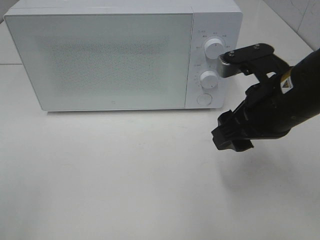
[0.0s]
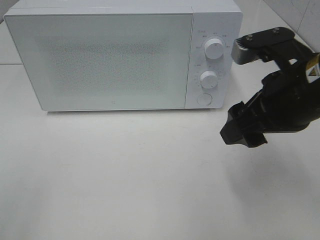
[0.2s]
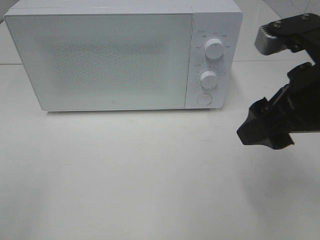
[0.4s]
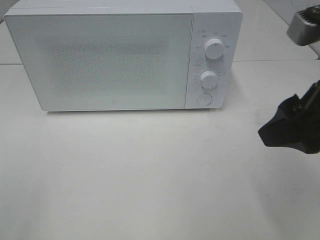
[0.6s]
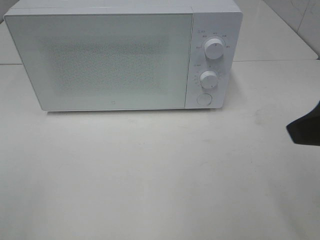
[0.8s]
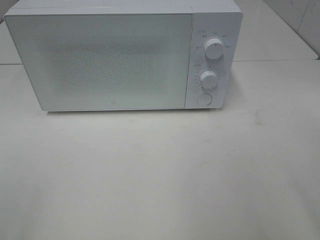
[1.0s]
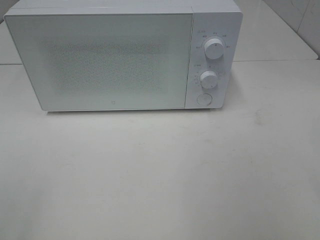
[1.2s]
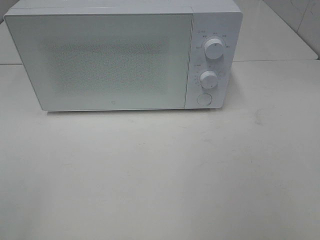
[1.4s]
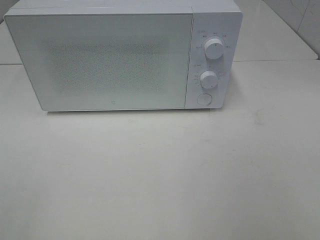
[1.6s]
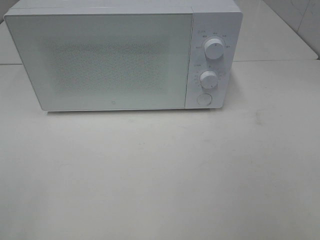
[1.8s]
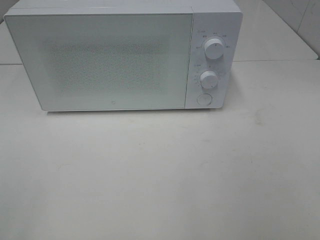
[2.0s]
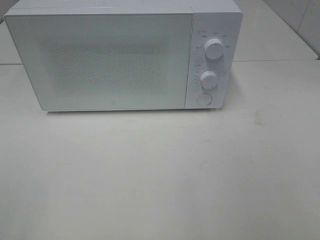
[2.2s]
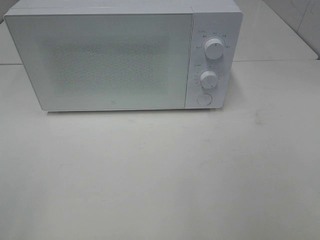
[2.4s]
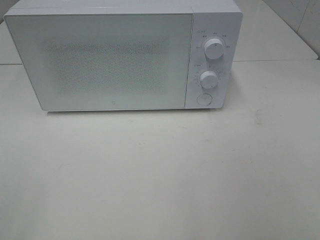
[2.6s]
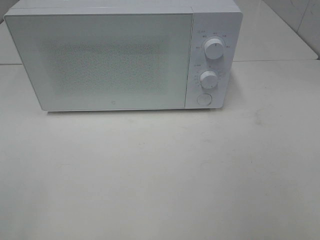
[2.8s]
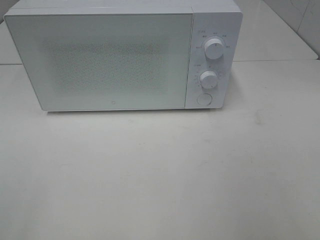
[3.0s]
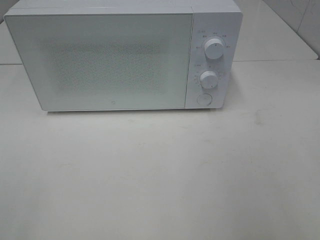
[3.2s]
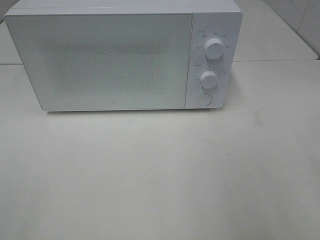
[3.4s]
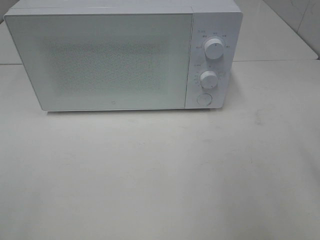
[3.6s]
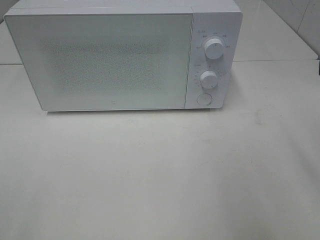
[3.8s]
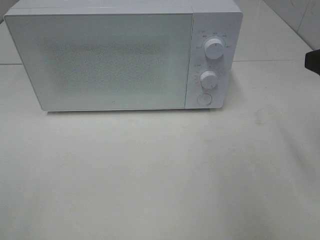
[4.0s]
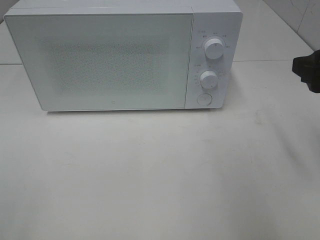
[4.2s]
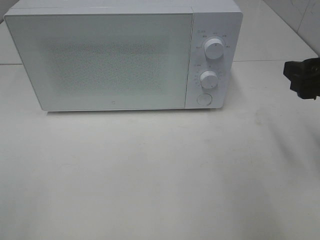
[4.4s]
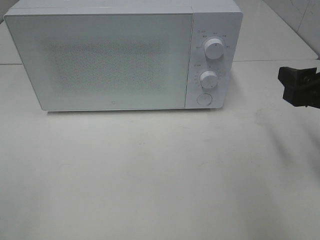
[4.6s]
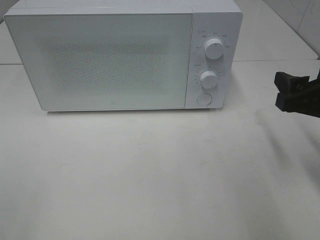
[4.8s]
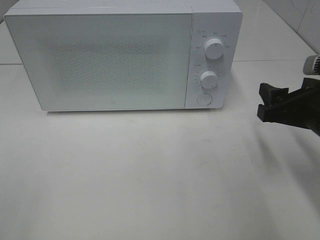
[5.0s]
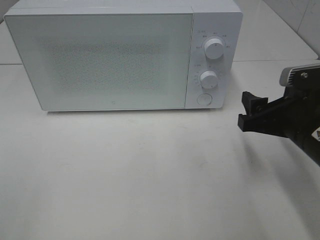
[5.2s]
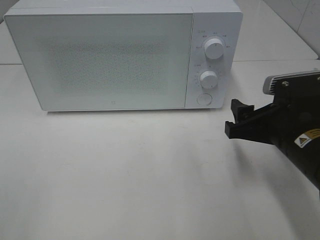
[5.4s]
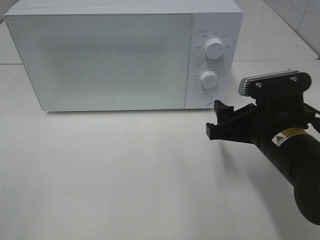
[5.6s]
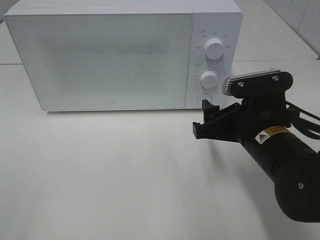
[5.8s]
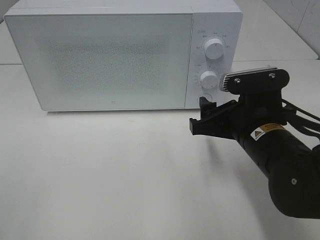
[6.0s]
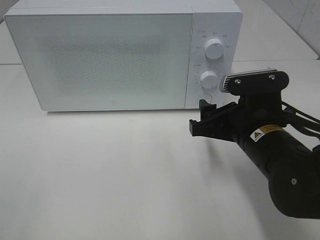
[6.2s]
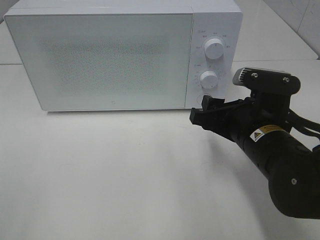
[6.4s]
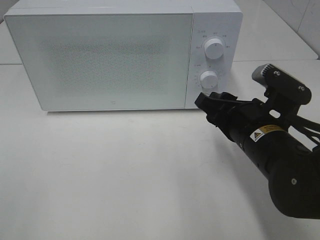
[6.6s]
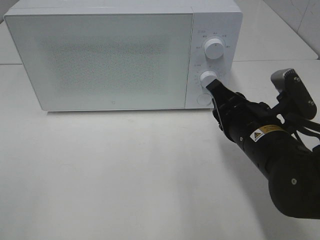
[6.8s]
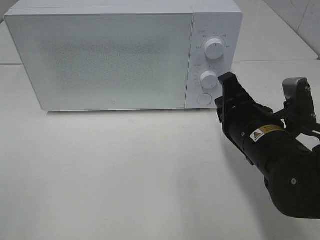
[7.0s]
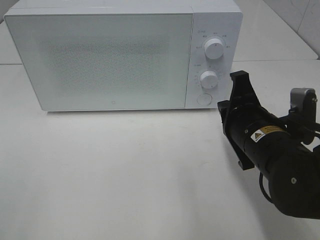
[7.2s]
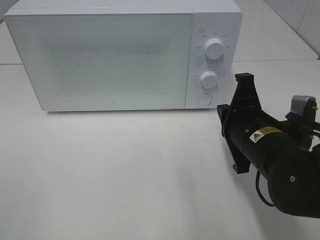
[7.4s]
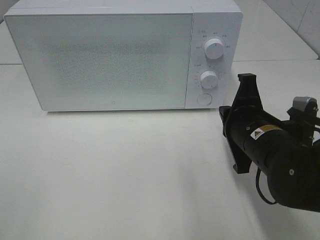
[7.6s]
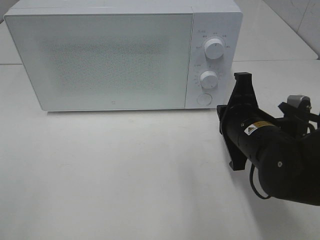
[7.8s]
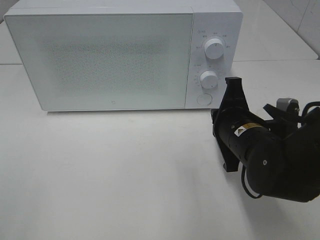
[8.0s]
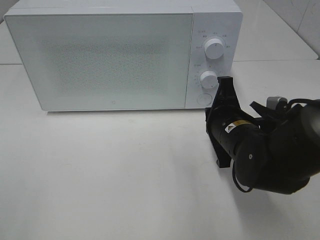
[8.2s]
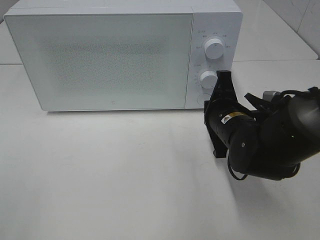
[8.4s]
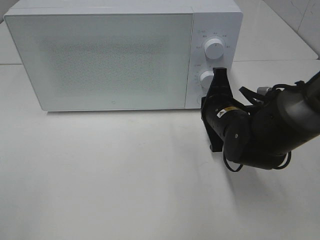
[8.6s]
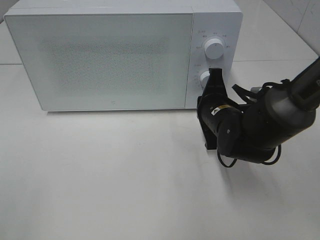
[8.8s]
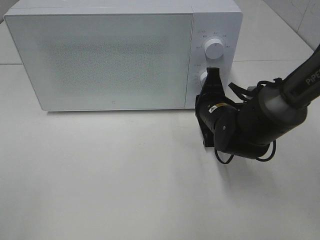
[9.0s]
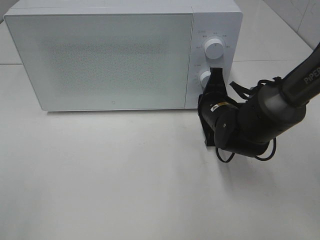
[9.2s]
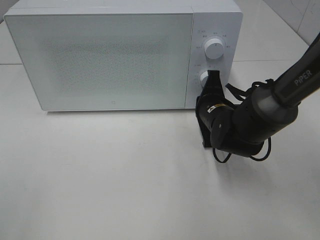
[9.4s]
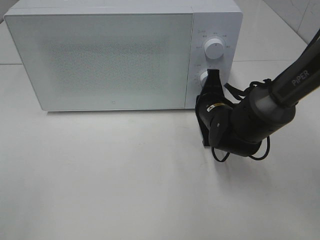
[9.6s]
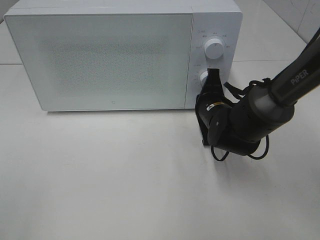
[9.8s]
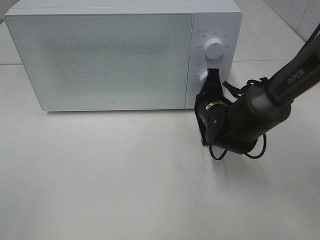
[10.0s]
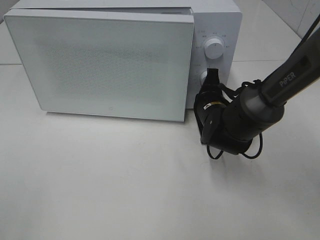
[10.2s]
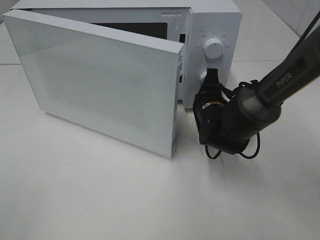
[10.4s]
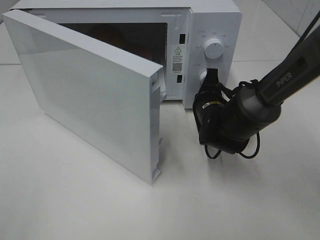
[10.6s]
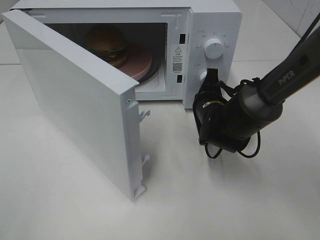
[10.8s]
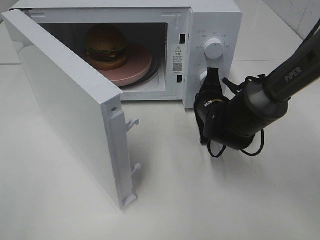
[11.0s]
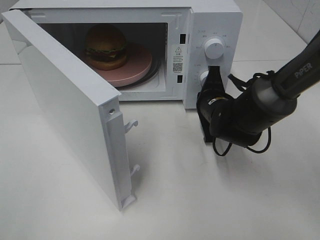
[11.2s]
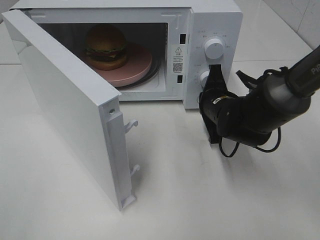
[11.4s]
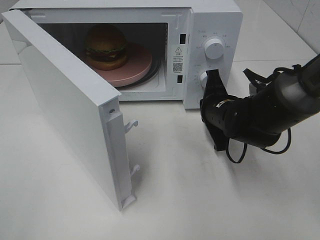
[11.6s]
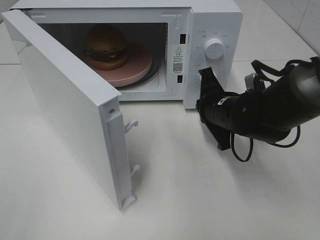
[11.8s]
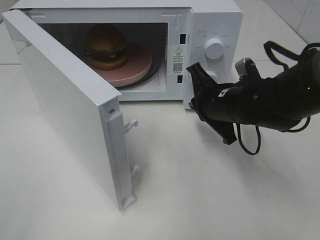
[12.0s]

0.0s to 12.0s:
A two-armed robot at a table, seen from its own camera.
Task of the whole recording: Heat the burger.
Step, 0.0s to 11.8s: Right hand: press the switch.
0.0s to 1.6s: The right gripper goes roughly 25 cm backward, to the right and upward.
3.0s to 4.4s: The right gripper travels forward and downward by roughly 20 cm.
4.4s to 6.0s: The right gripper is displaced to the left and downward by about 15 cm.
6.0s to 7.6s: The right gripper closes its fingers.
7.6s to 9.0s: The right gripper shifts about 10 cm forward.
9.0s to 10.4s: There are only small adjustments of the grippers.
10.4s to 12.0s: The right gripper heads upward, covering approximately 5 cm.

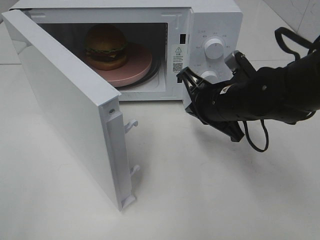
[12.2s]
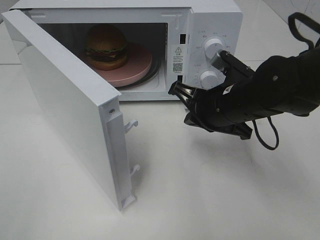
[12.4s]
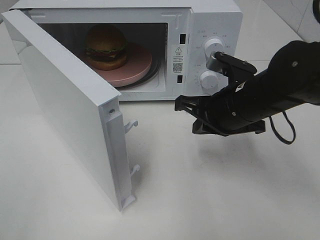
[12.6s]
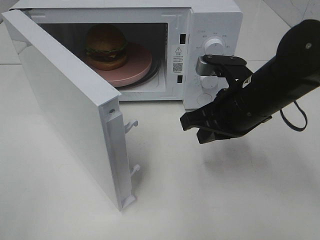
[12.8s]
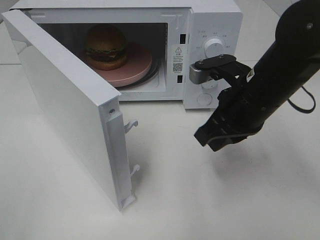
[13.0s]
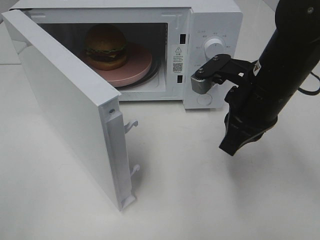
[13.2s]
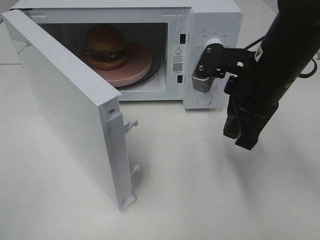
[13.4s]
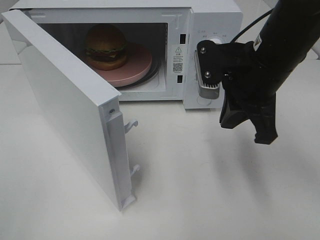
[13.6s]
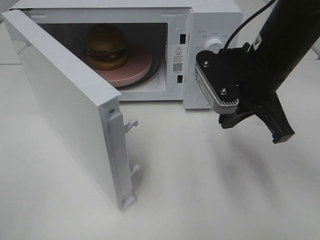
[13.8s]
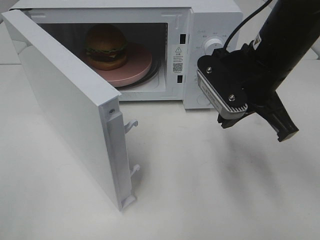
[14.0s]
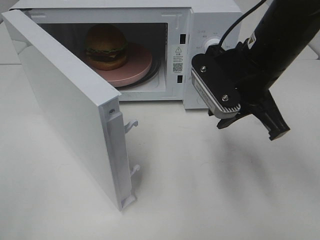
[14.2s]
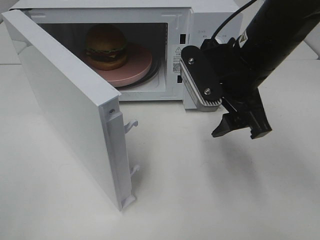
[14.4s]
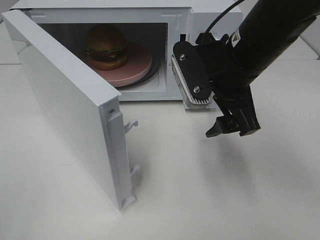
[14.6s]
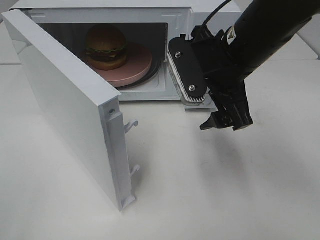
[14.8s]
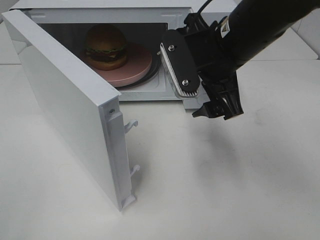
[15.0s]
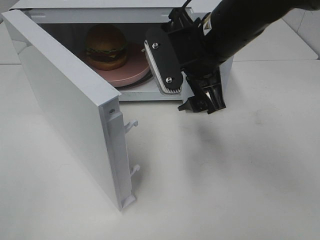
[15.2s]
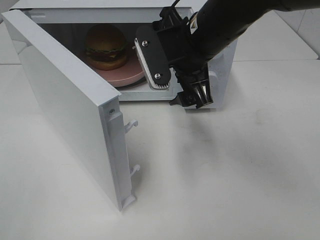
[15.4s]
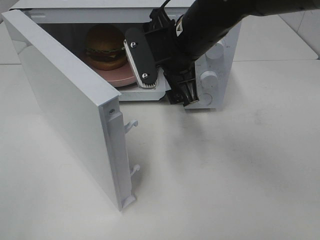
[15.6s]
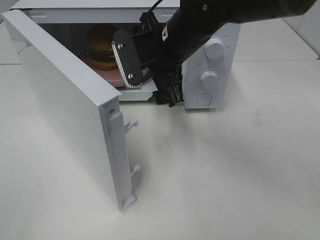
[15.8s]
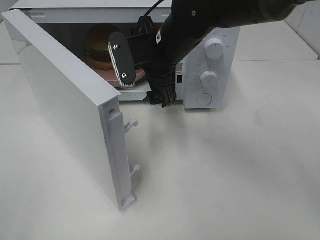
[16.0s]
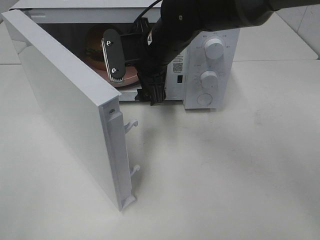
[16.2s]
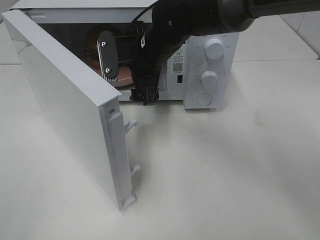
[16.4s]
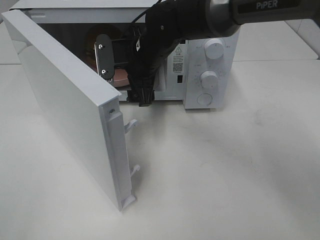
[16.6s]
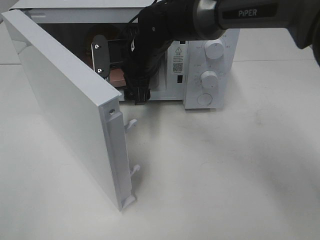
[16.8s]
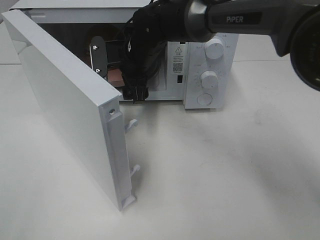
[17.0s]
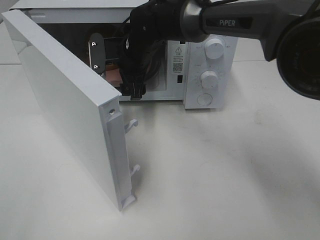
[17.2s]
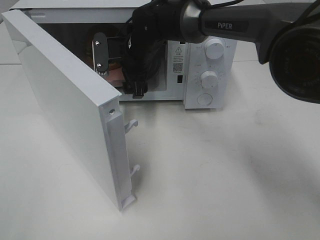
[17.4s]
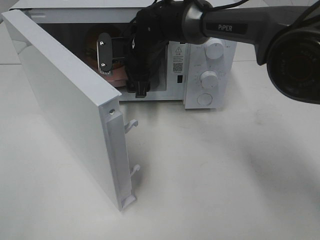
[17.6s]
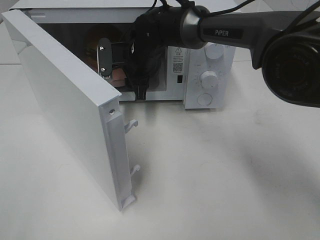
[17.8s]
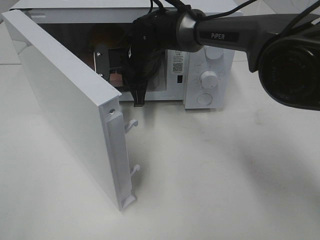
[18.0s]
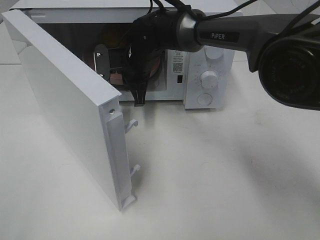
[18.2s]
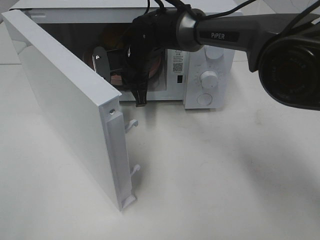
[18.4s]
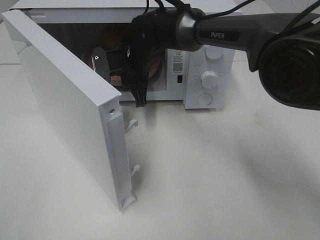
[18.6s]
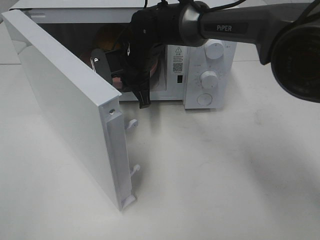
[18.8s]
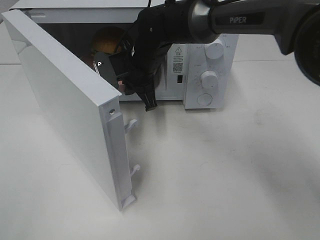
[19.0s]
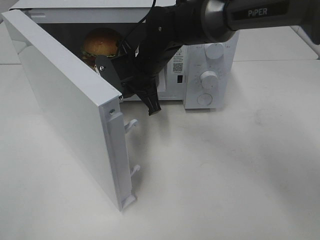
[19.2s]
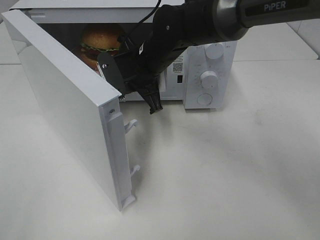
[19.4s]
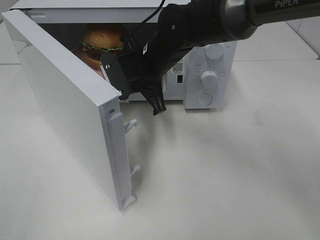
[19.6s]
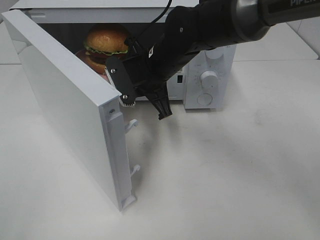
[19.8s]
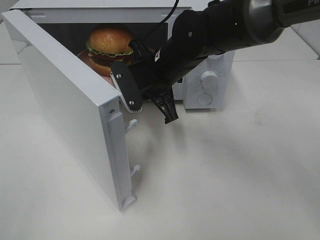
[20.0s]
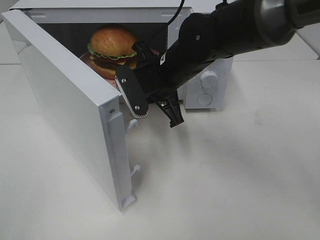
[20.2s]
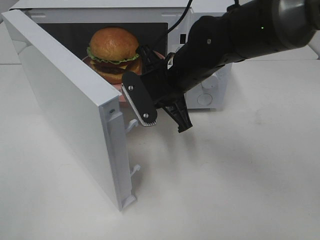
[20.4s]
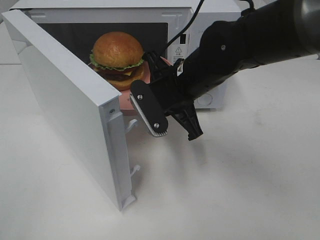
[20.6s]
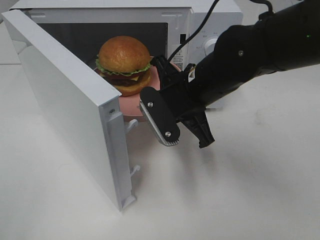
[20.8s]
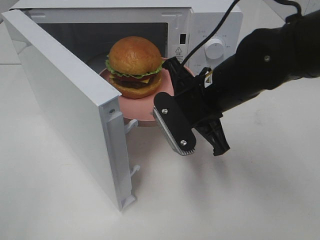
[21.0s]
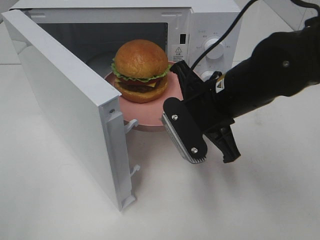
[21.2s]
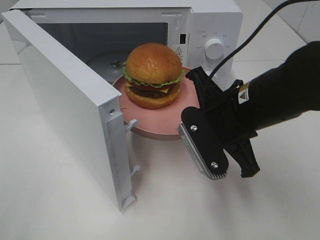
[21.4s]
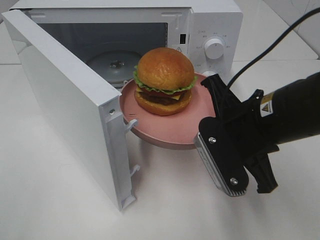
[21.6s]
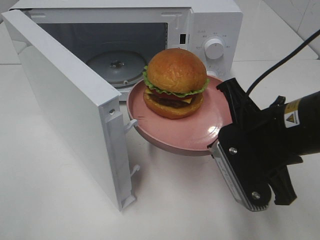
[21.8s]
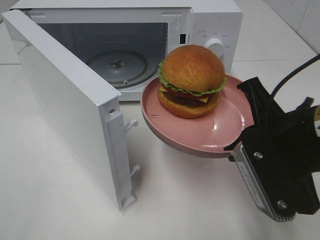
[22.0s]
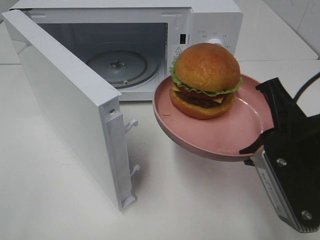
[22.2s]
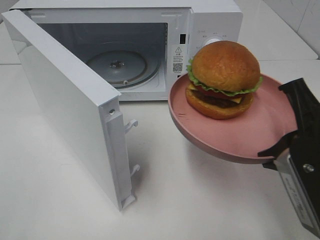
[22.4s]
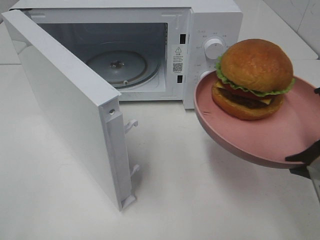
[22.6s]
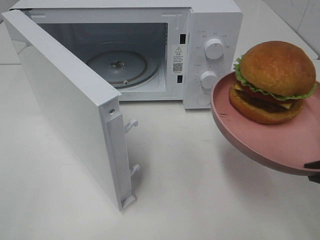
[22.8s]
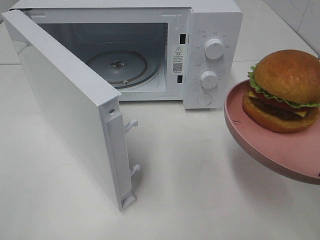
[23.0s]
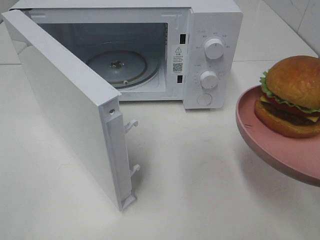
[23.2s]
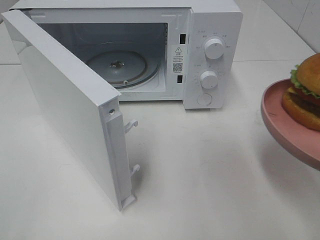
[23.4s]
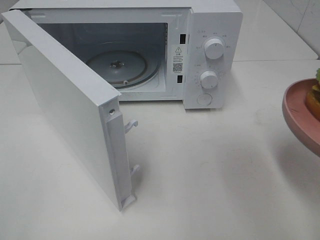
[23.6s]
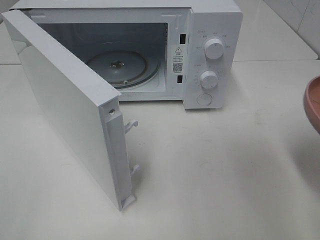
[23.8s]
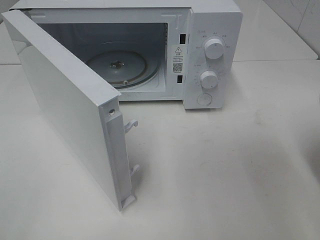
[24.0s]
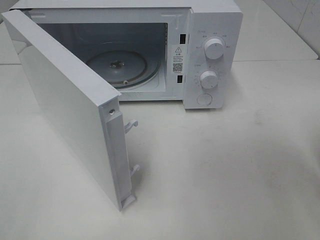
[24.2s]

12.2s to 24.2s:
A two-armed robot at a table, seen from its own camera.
Task of the whole recording: Heat the burger.
Step, 12.2s to 18.0s: Right hand: grab the plate with the hamburger.
12.2s to 13.8s: The right gripper moves upward, roughly 10 cm.
13.8s to 15.2s: The right gripper goes some 5 cm to the left, and opens.
15.2s to 16.6s: The right gripper moves forward, to the left and downward, about 15 cm.
16.6s to 18.2s: The right gripper heads forward, covering about 5 cm, and closes up.
18.2s to 19.8s: The right gripper shifts some 10 cm backward.
19.8s to 21.2s: The right gripper goes approximately 15 cm backward and to the right.
21.2s to 22.6s: The right gripper travels backward and to the right by some 20 cm.
22.6s to 24.2s: The right gripper heads to the right, covering roughly 5 cm.
